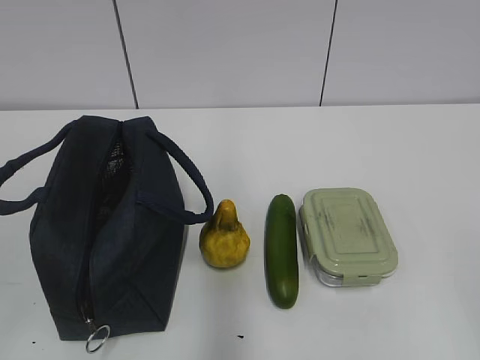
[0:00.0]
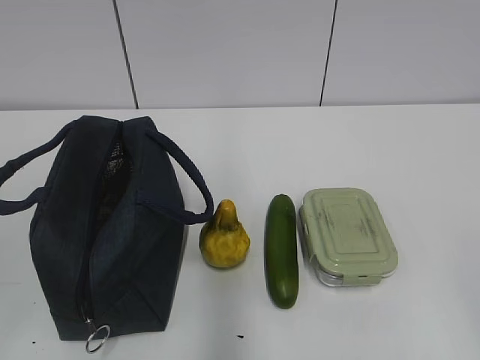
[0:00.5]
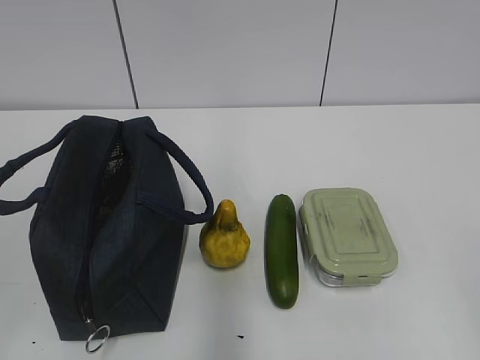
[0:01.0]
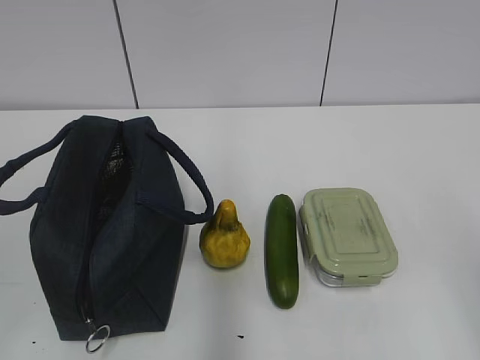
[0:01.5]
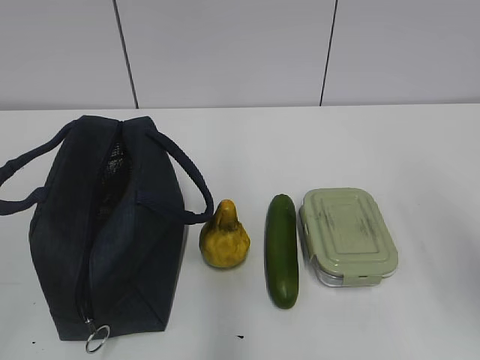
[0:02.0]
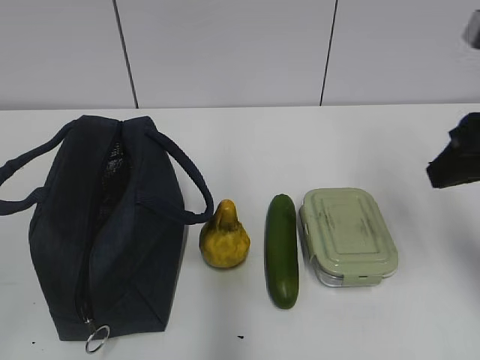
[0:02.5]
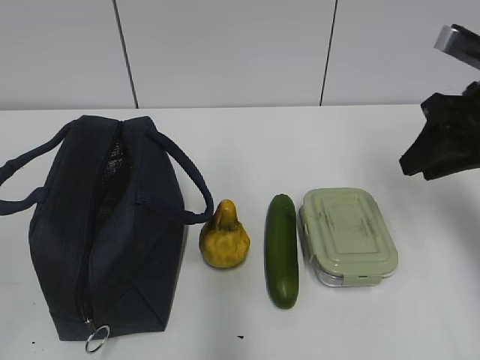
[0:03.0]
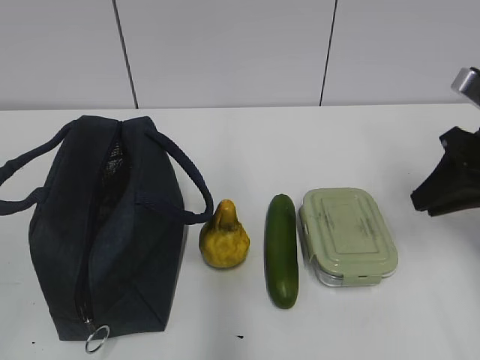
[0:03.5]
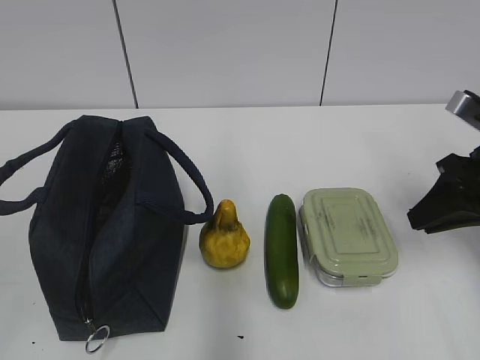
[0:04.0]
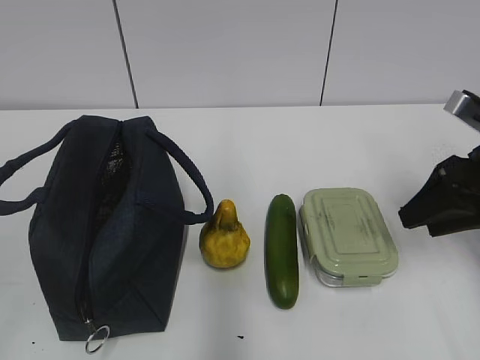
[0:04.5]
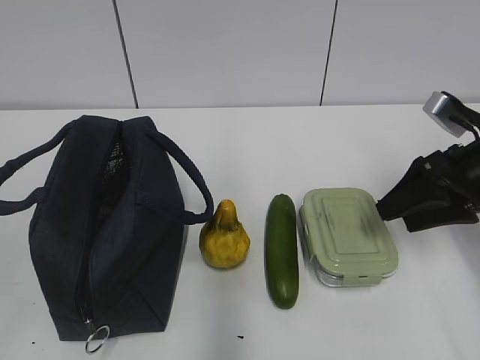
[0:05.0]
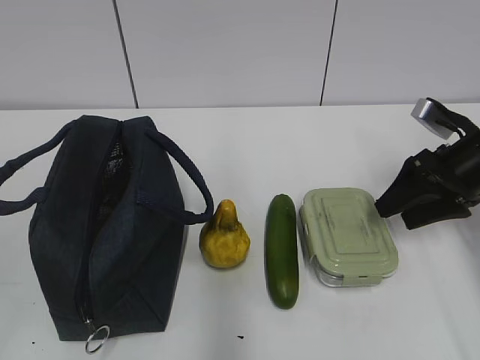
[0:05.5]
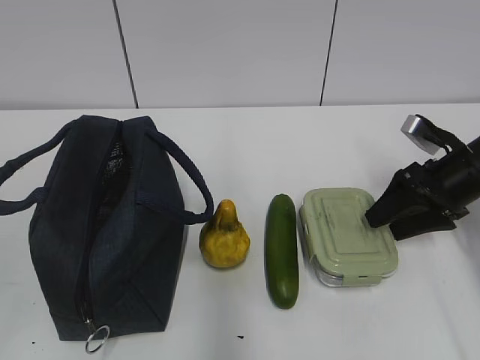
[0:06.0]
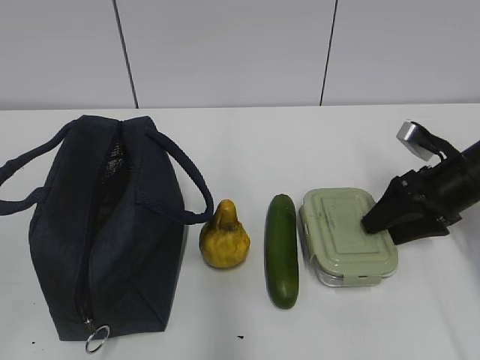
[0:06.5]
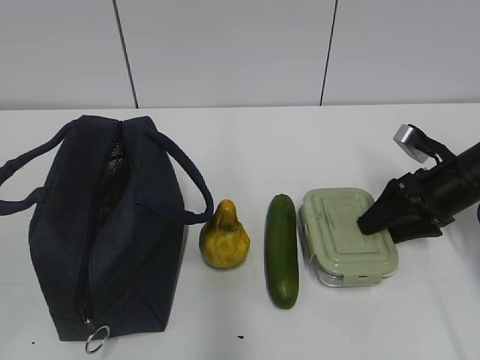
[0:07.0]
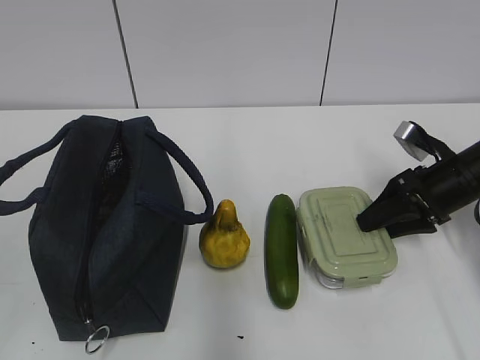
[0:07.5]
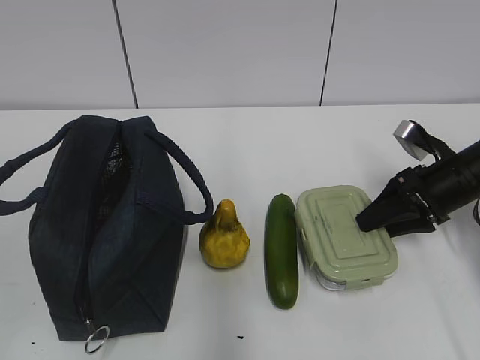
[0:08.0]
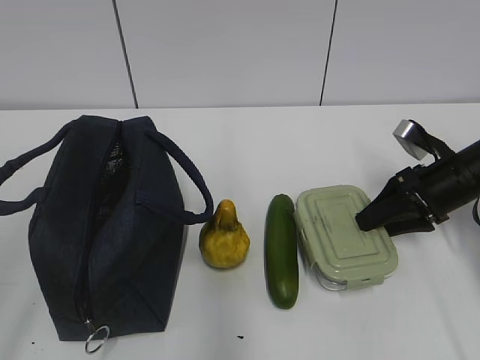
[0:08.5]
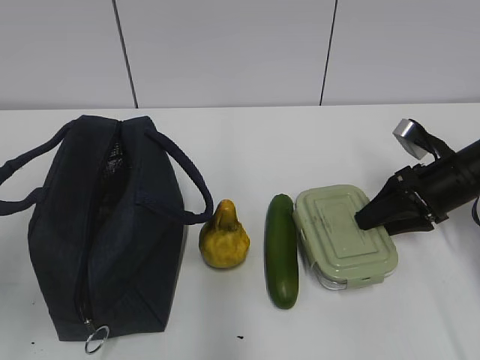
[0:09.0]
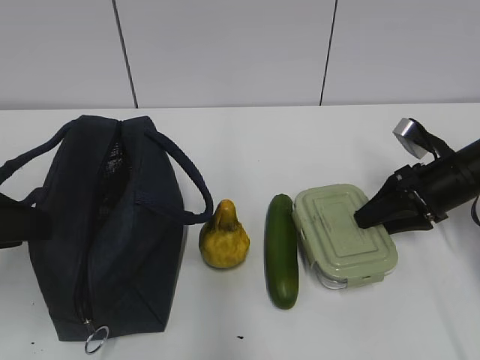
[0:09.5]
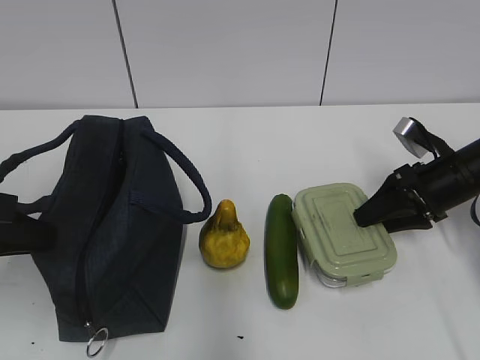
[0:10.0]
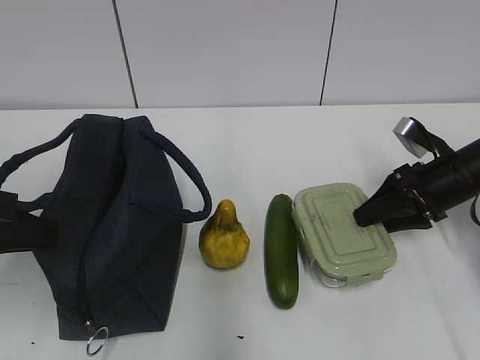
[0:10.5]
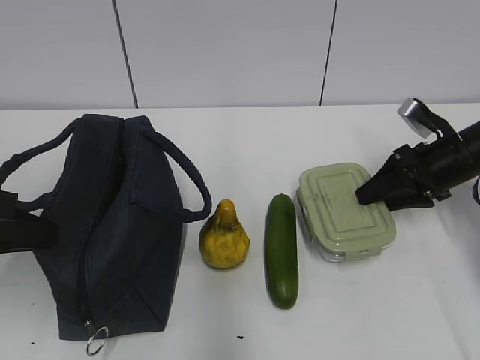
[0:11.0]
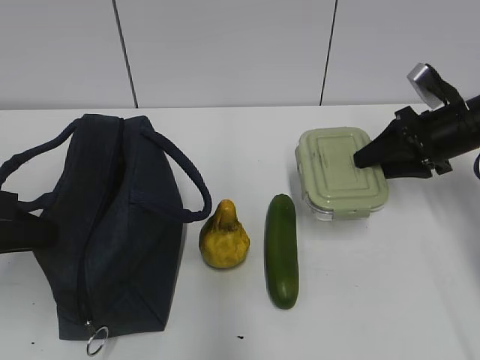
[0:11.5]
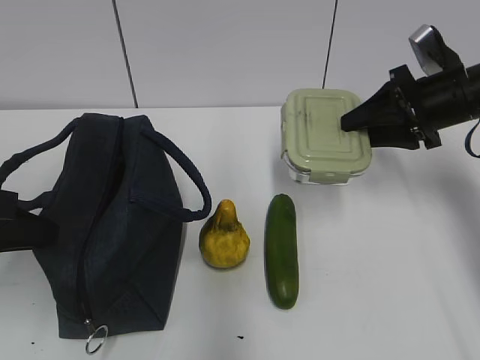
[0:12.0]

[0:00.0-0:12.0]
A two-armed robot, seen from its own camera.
Step, 0:00.0 to 0:09.0: Grab the lunch box with your right hand.
0:02.0 to 0:04.0: The right gripper shifts about 20 cm forward and downward.
0:04.0 to 0:06.0: The right gripper moves downward and forward, some 10 cm, and opens up.
0:06.0 to 0:08.0: The grippers stay close to where they were, moving slightly.
0:08.0 to 0:10.0: The left gripper is displaced forward by some 20 cm, and closes its fingers.
0:10.0 to 0:12.0: The right gripper moves upward, some 10 cm.

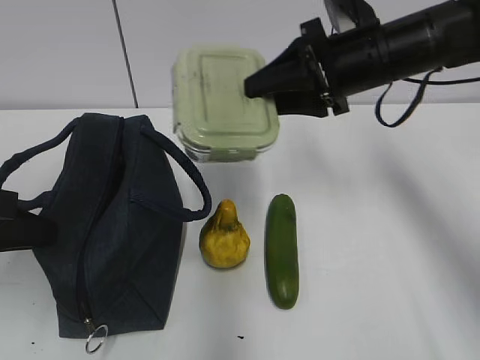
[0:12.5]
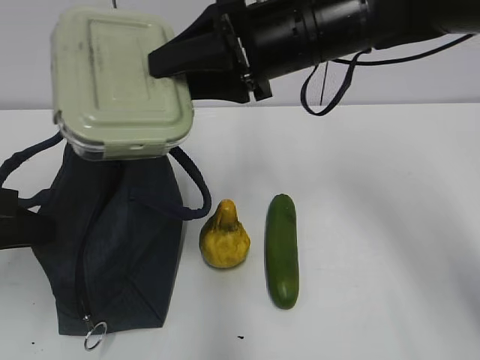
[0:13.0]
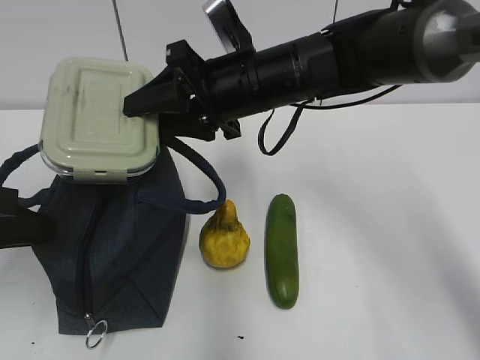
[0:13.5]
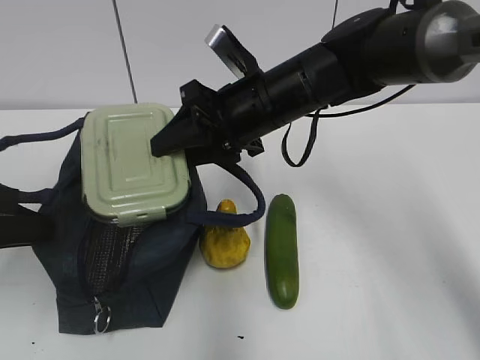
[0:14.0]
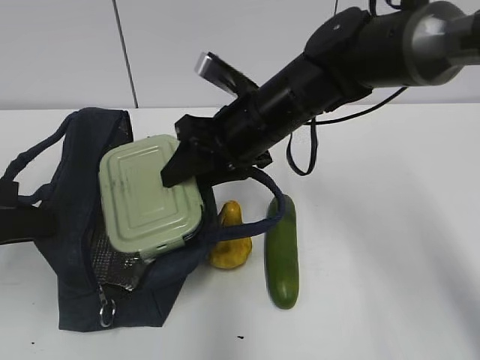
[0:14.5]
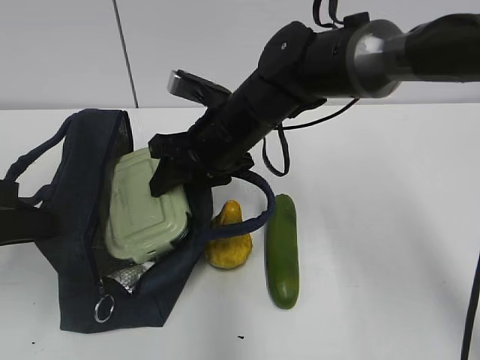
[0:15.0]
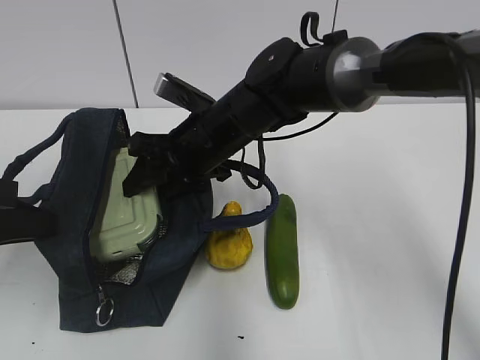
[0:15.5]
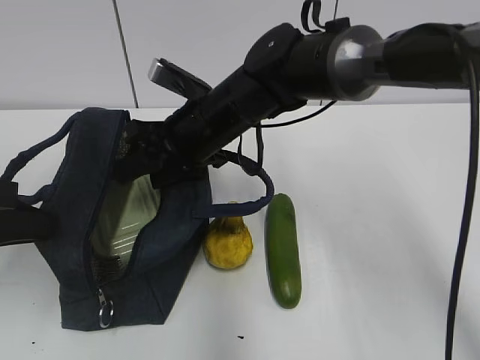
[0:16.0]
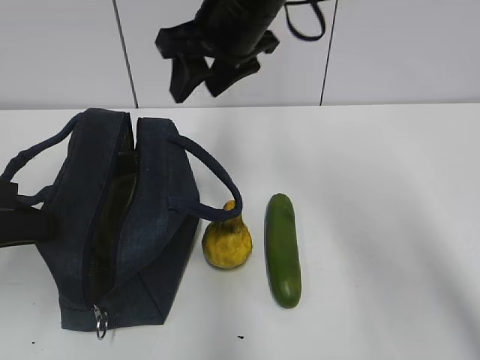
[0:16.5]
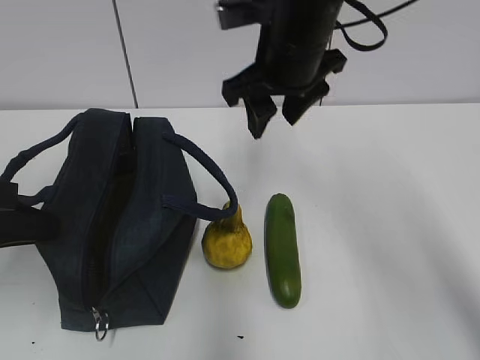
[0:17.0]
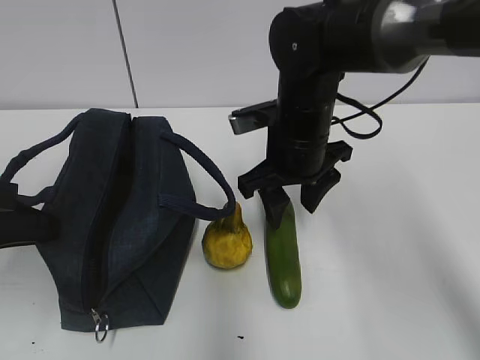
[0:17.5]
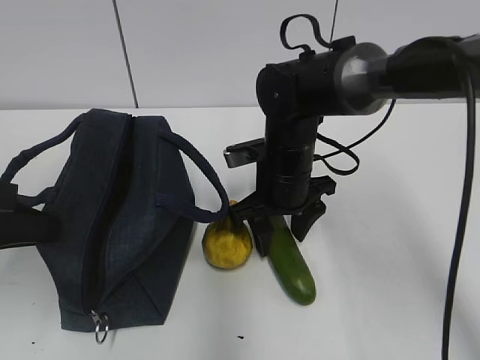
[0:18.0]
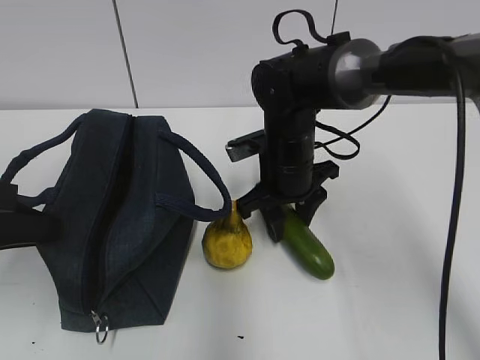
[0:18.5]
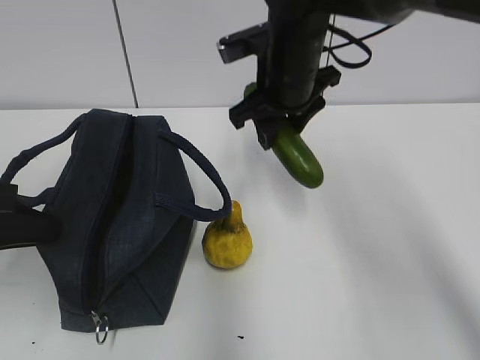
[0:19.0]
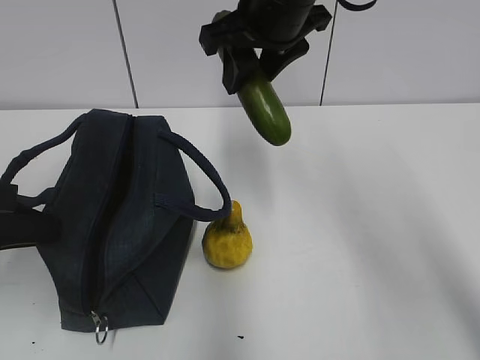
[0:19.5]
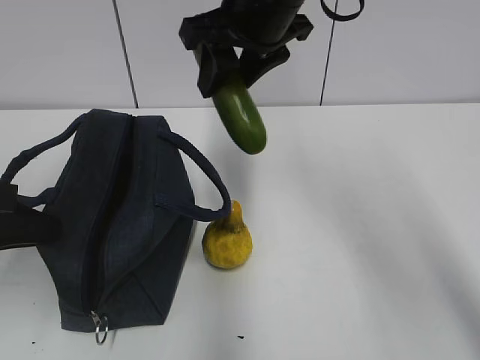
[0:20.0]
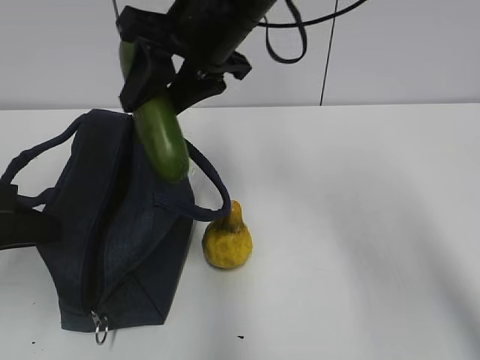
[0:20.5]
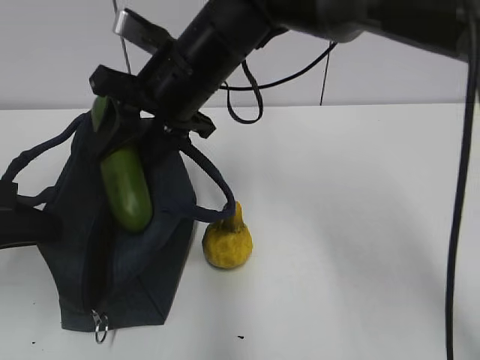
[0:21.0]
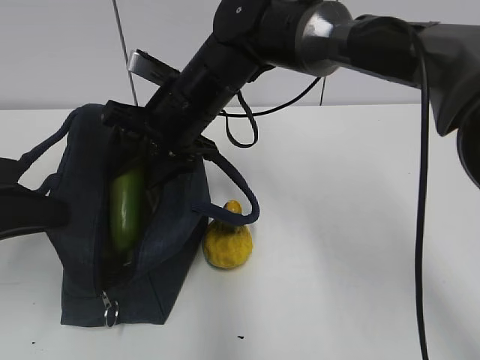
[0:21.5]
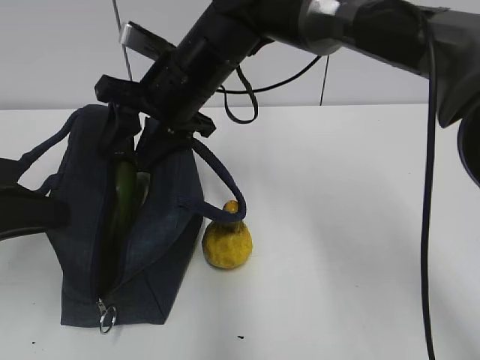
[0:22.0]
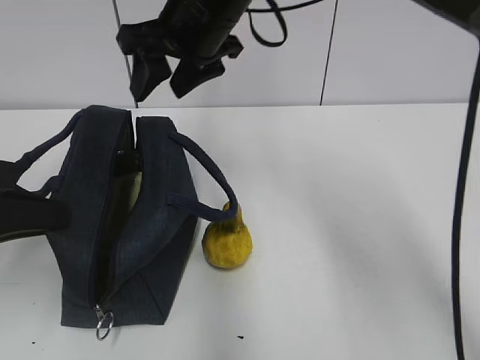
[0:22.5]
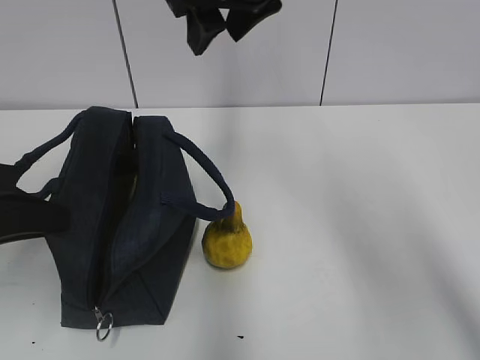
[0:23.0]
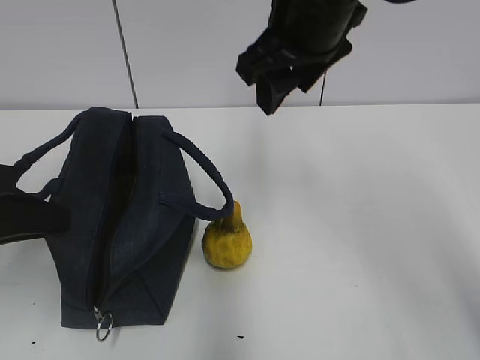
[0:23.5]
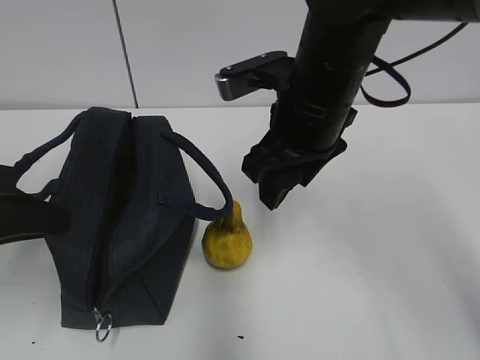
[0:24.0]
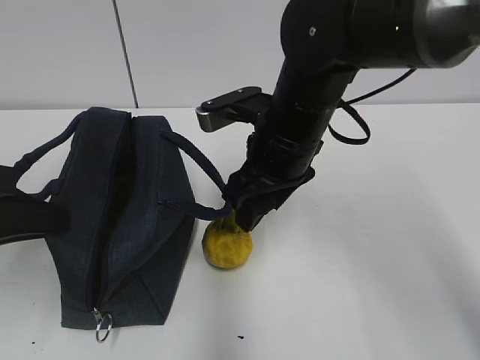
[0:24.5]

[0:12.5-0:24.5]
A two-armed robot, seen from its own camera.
Step, 0:14.0 to 0:16.0: Place it into the bag with your right hand.
Step, 0:16.5 to 0:18.0: Grab the cucumber with your right hand.
Step, 0:18.5 to 0:21.5: Place it into the bag with your right hand.
0:12.5 to 0:14.5: The right gripper goes some 15 cm to the left and downward.
0:14.5 to 0:16.5: The right gripper moves upward, roughly 10 cm.
0:16.5 to 0:18.5: The right gripper travels downward by about 20 cm.
0:18.5 to 0:20.5: The right gripper is displaced upward by about 20 cm.
0:20.5 to 0:22.5: The right gripper reaches approximately 10 cm downward, then returns.
0:22.5 to 0:24.5: The right gripper travels downward, backward and to the right by some 15 cm.

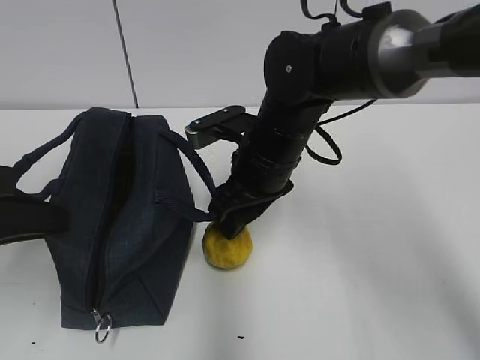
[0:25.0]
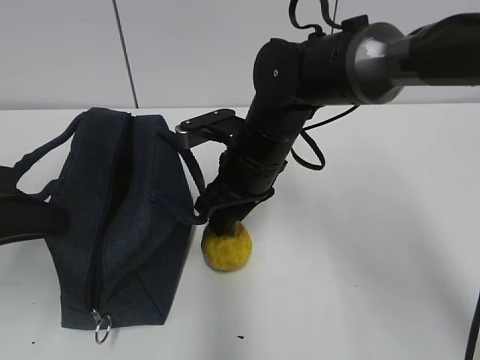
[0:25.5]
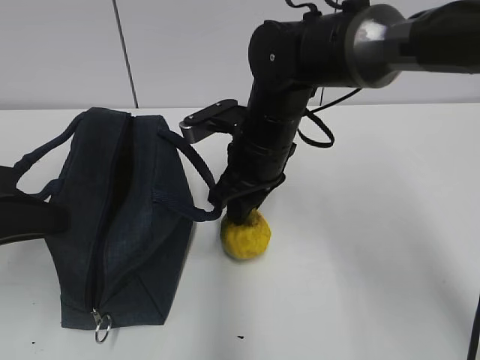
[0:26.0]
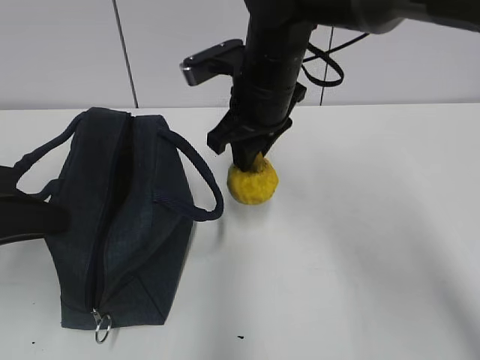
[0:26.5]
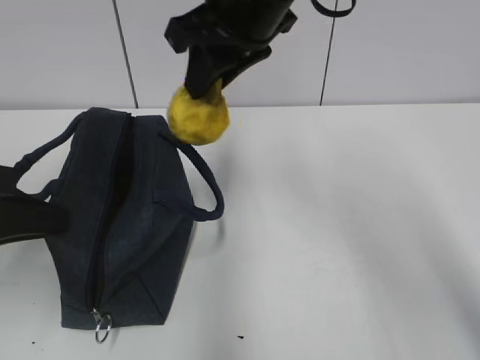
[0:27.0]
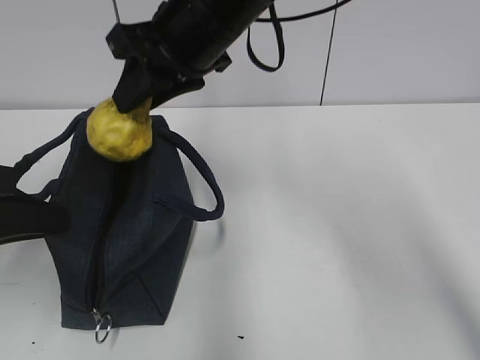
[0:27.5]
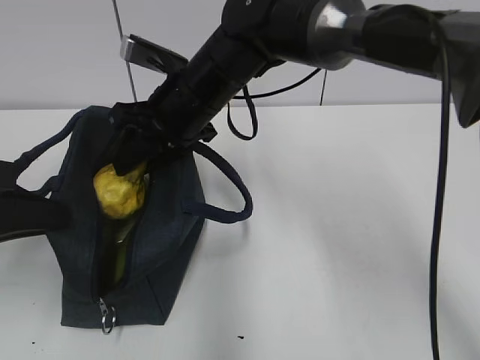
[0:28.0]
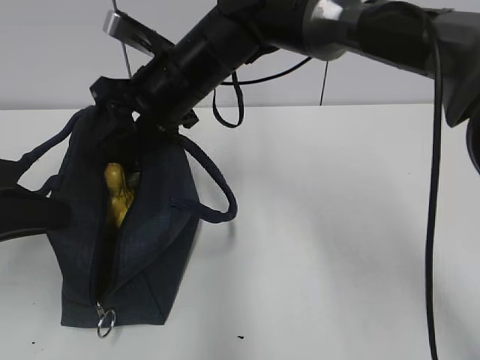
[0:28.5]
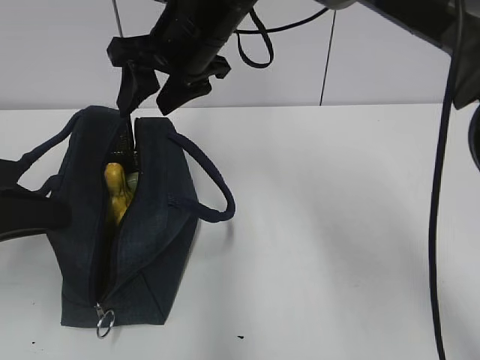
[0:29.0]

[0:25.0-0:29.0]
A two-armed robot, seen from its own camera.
0:25.0 to 0:27.0: The right gripper shifts about 15 cm upward, and closes its fingers.
0:27.0 to 0:29.0: The right gripper is displaced to the left, forward and downward by roughly 10 cm, and opens up.
